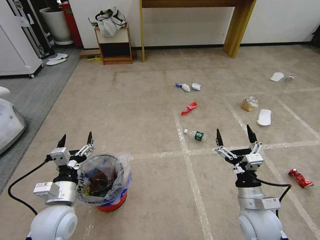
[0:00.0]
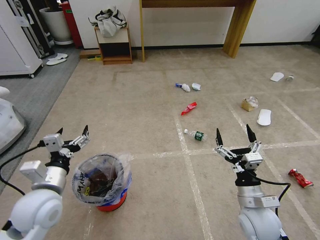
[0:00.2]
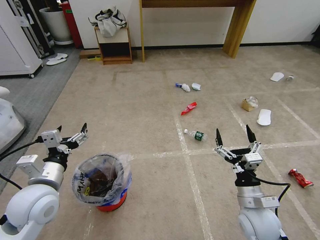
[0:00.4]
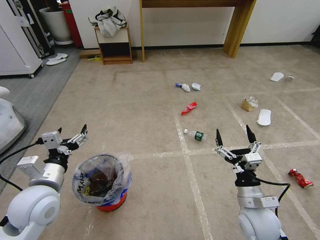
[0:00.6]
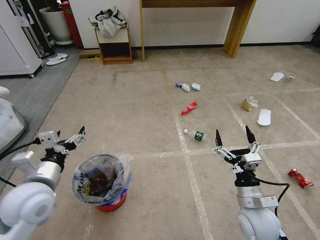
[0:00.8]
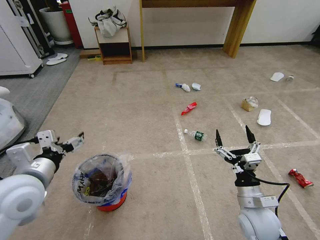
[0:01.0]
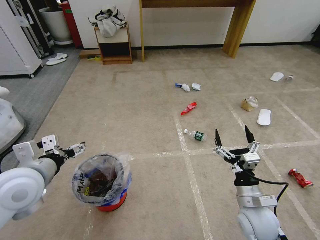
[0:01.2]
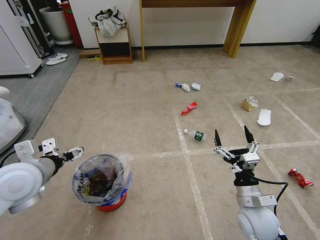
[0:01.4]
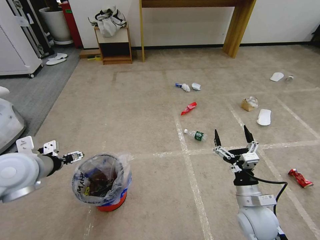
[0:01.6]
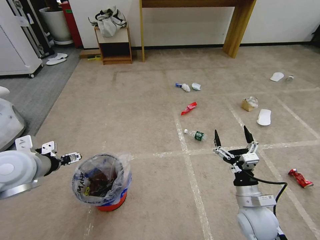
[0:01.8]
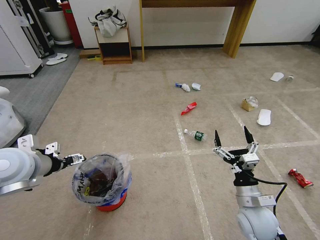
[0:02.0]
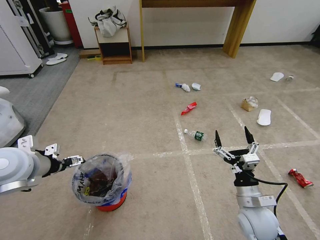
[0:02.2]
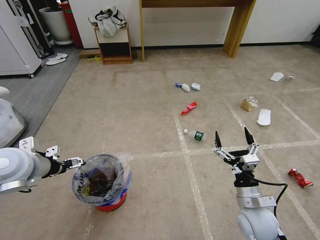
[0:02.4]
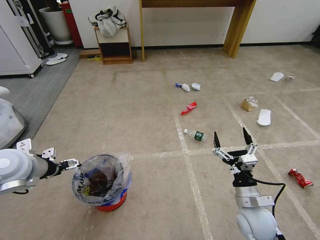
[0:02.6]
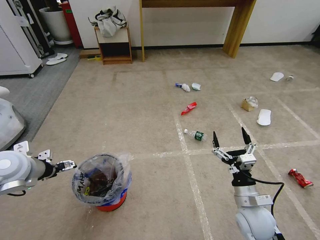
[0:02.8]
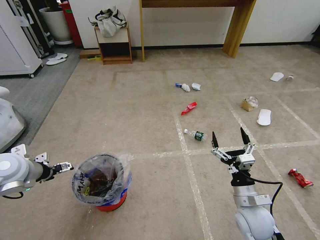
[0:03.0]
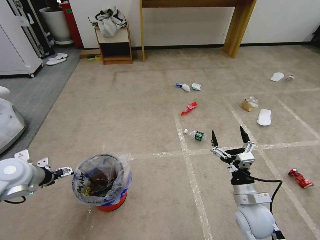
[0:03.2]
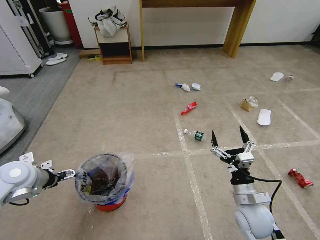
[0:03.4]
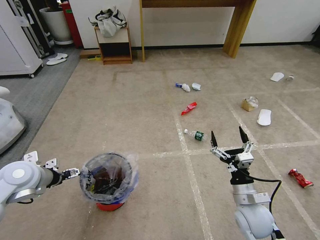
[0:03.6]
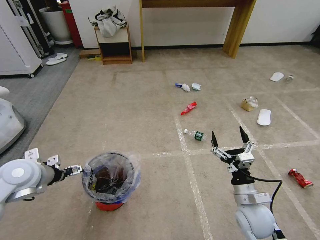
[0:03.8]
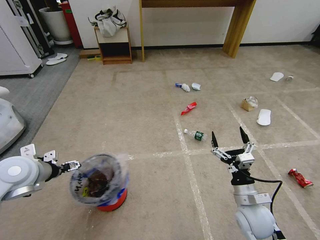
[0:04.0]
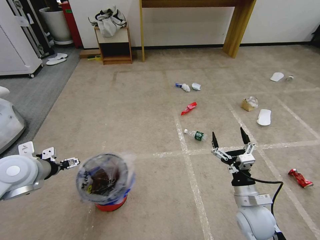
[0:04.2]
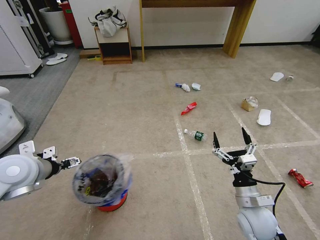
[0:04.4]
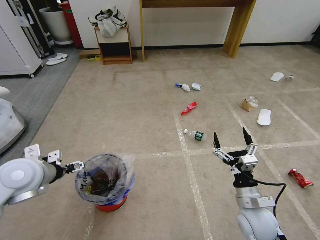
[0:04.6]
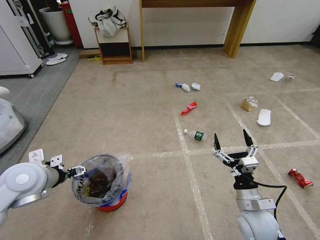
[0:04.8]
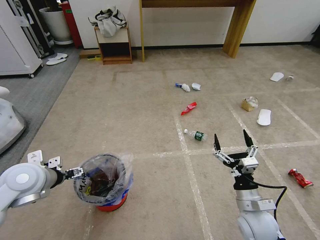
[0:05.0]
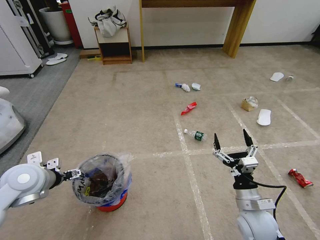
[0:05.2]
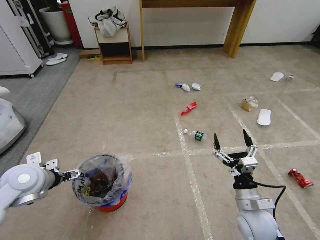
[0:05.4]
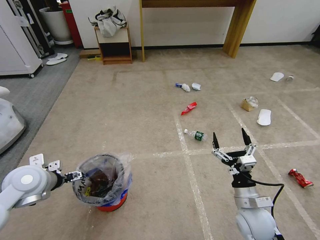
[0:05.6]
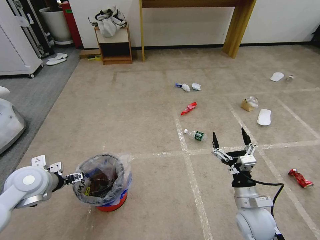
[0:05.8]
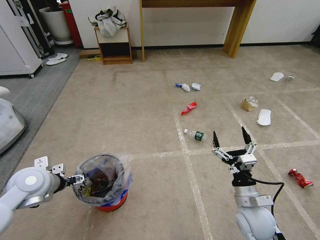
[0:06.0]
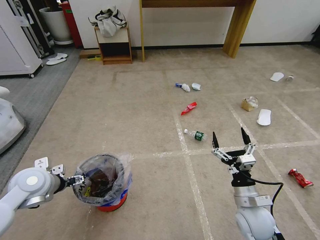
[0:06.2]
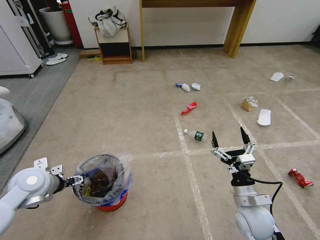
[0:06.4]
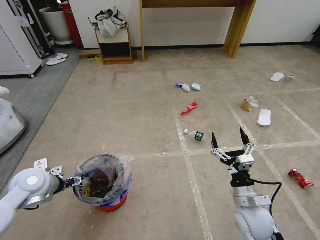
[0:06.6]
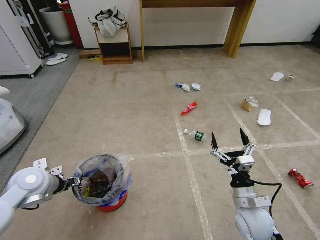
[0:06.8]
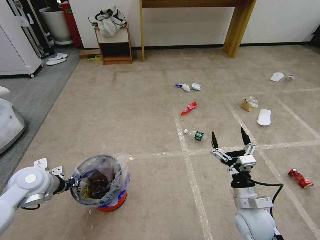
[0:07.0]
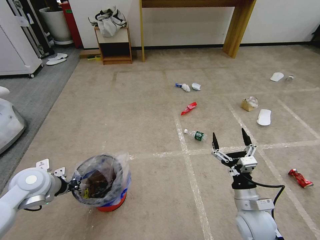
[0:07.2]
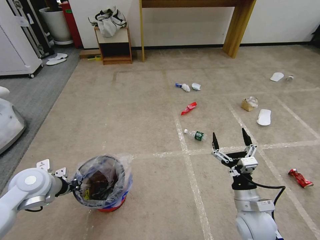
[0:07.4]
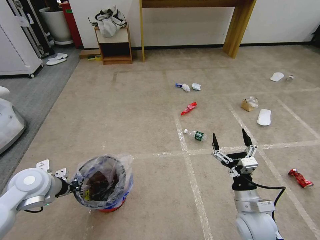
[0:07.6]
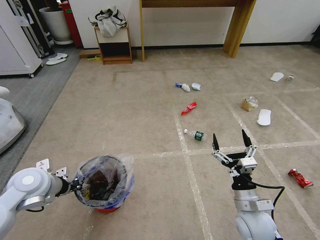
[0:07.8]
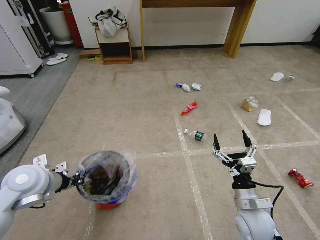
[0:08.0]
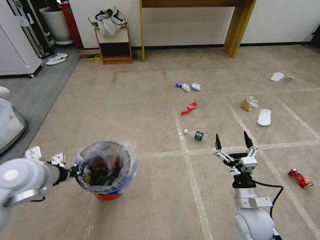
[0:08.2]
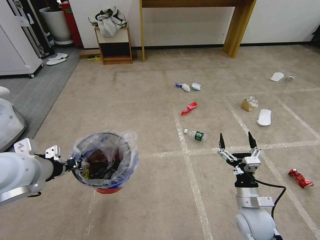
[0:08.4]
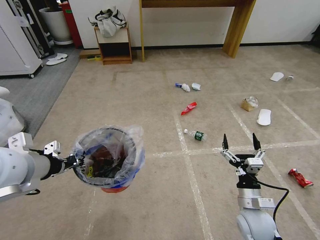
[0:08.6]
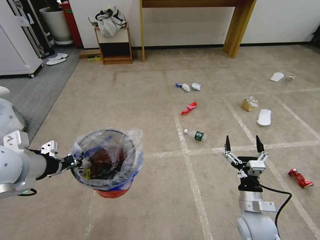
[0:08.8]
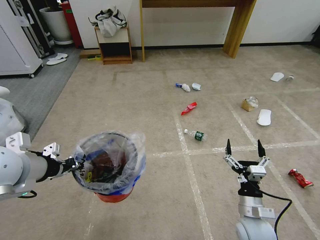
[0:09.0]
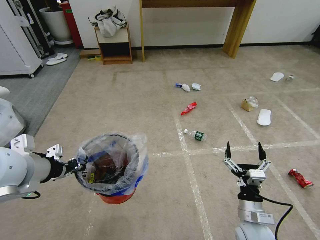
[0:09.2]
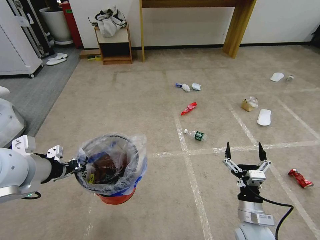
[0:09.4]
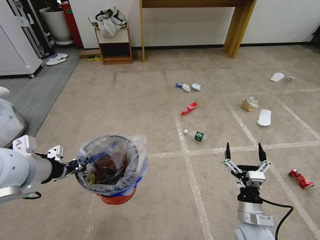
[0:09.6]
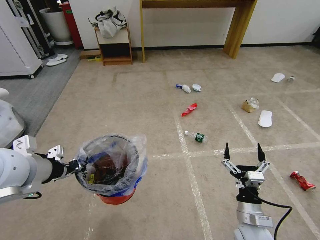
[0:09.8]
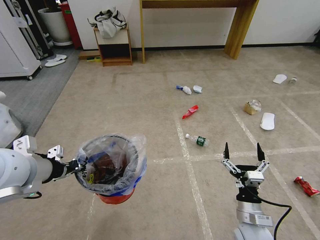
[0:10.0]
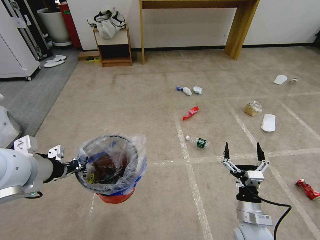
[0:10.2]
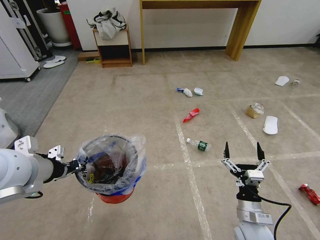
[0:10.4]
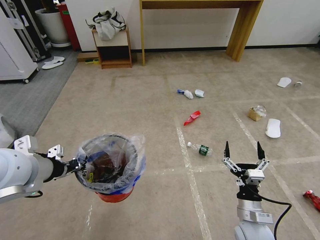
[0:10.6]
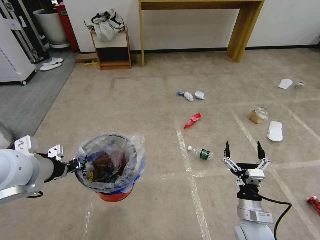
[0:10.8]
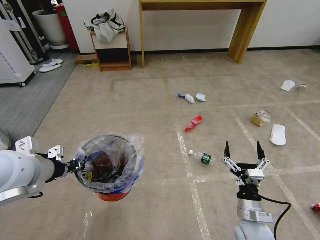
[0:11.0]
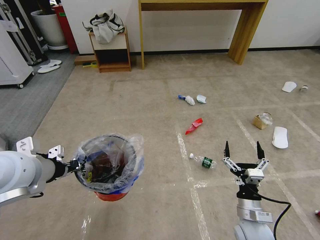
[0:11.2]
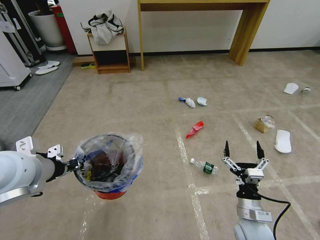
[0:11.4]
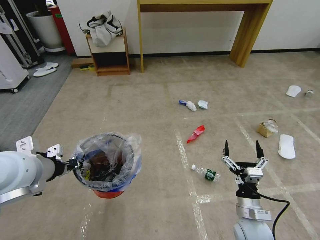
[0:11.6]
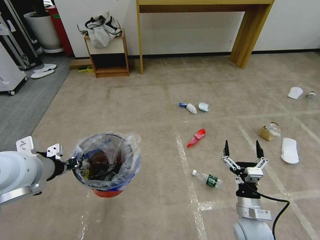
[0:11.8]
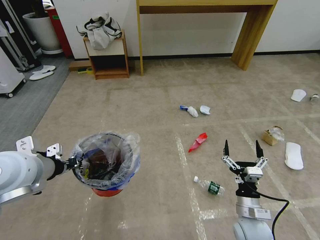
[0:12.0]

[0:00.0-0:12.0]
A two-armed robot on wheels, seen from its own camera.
Task of the whole recording: Pick up the trash bin and place the garbage on the floor into it.
0:01.6 to 0:03.0: The left gripper heads to the left, covering approximately 5 cm.
0:03.0 to 0:04.4: The left gripper shifts by some 5 cm.
0:04.4 to 0:06.0: The left gripper moves downward, approximately 5 cm.
0:06.0 to 0:07.6: The left gripper closes up.
0:07.6 to 0:09.0: The left gripper heads upward, covering about 15 cm.
0:09.0 to 0:10.4: The grippers move only a little.

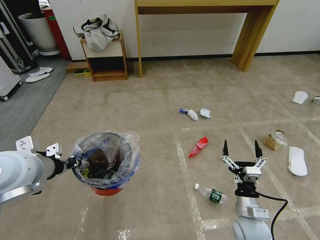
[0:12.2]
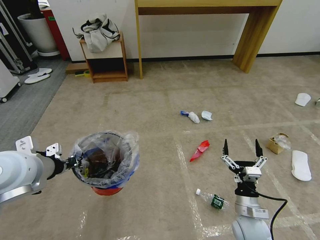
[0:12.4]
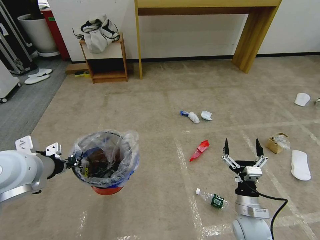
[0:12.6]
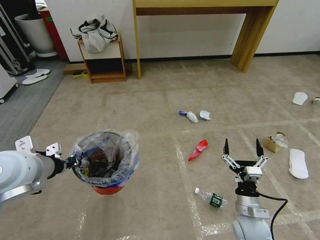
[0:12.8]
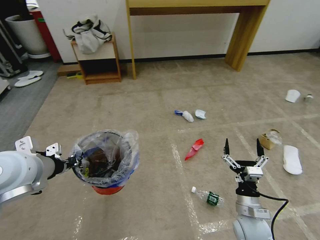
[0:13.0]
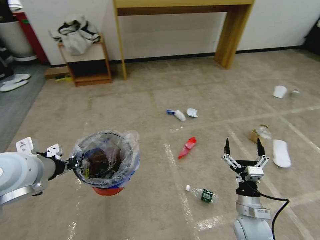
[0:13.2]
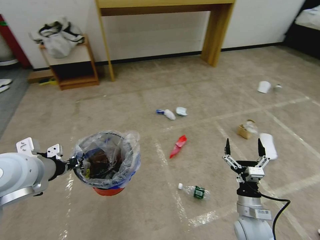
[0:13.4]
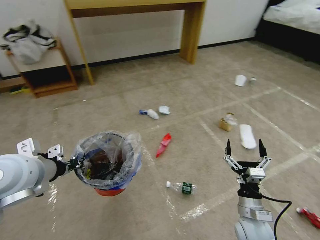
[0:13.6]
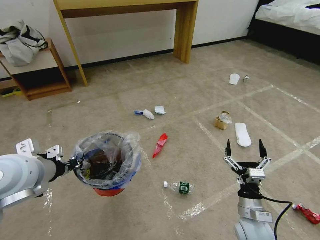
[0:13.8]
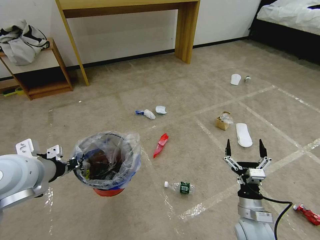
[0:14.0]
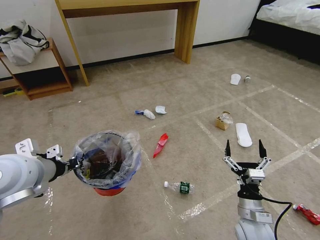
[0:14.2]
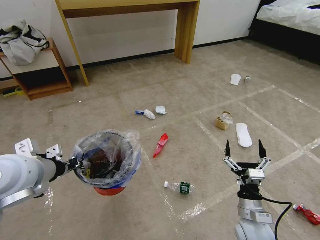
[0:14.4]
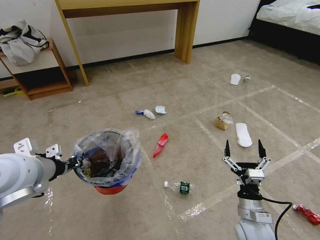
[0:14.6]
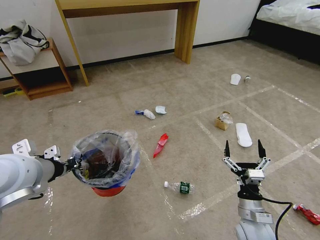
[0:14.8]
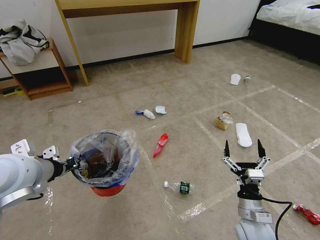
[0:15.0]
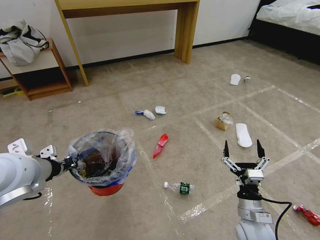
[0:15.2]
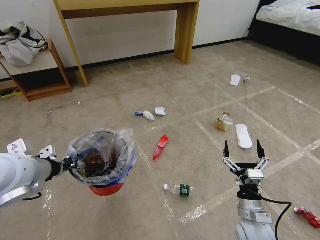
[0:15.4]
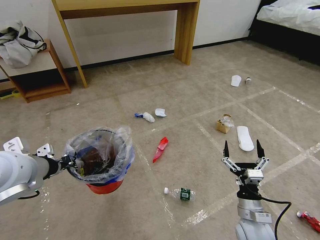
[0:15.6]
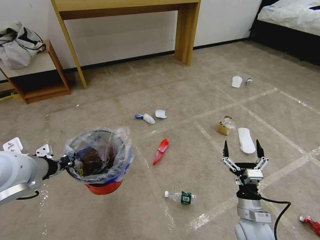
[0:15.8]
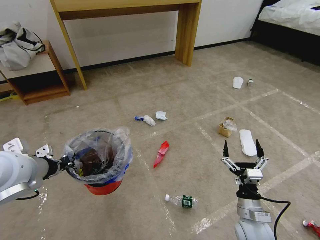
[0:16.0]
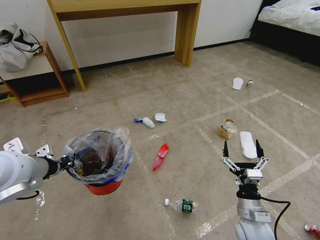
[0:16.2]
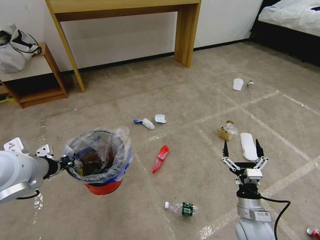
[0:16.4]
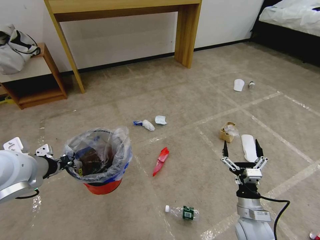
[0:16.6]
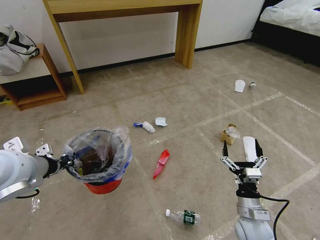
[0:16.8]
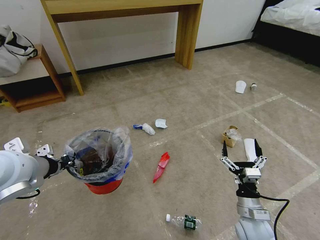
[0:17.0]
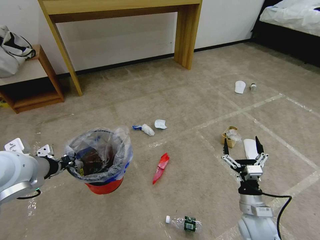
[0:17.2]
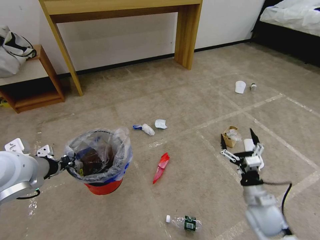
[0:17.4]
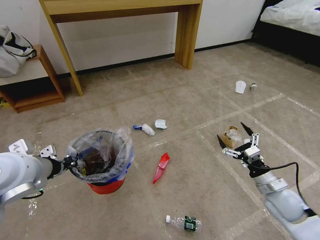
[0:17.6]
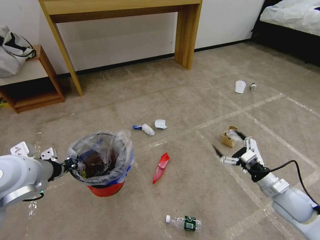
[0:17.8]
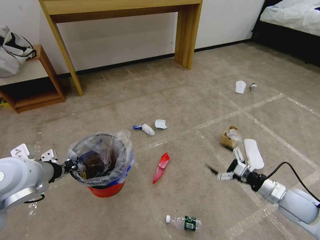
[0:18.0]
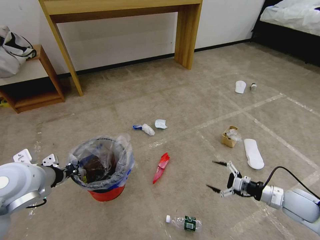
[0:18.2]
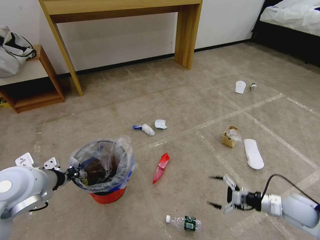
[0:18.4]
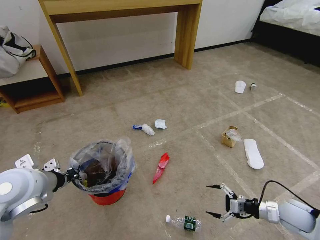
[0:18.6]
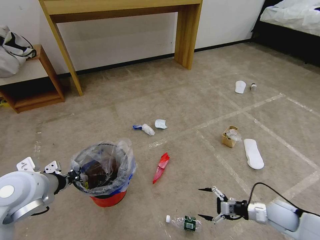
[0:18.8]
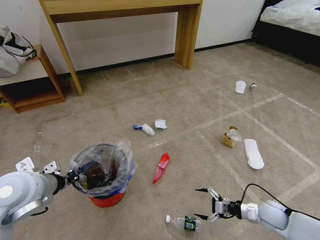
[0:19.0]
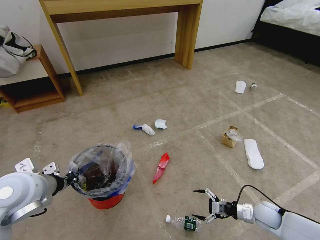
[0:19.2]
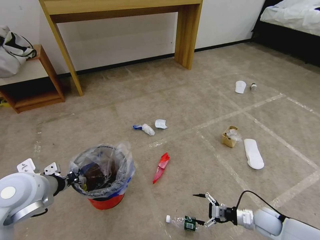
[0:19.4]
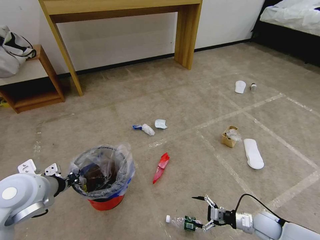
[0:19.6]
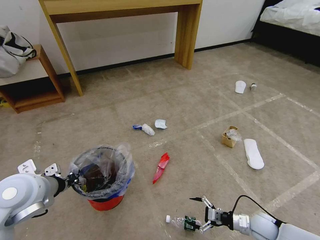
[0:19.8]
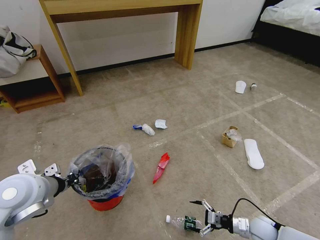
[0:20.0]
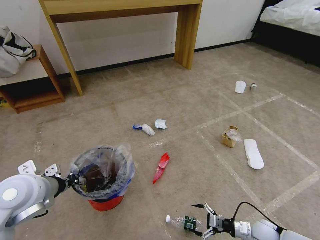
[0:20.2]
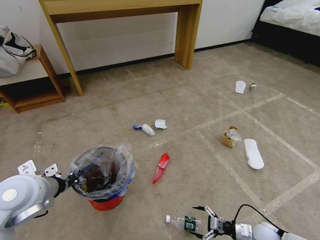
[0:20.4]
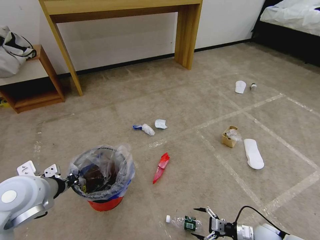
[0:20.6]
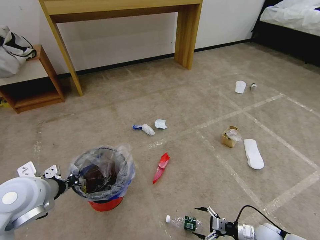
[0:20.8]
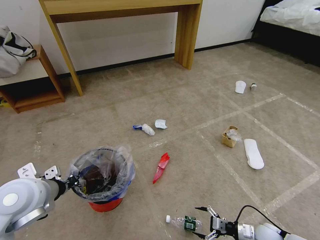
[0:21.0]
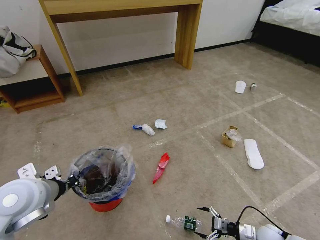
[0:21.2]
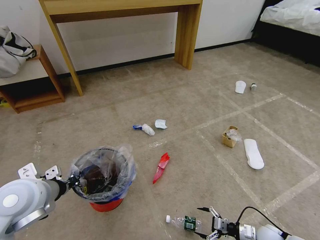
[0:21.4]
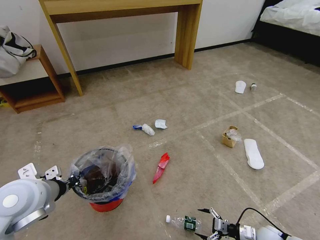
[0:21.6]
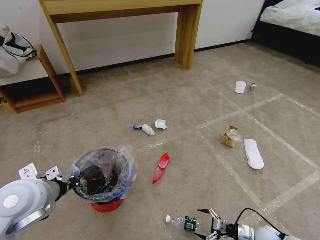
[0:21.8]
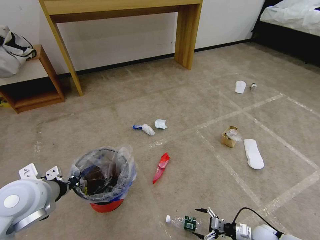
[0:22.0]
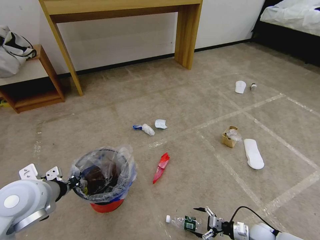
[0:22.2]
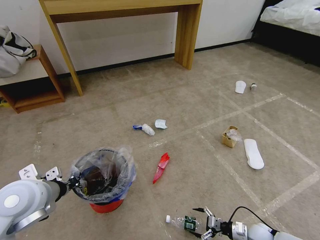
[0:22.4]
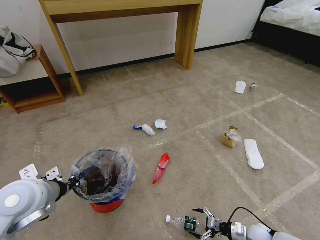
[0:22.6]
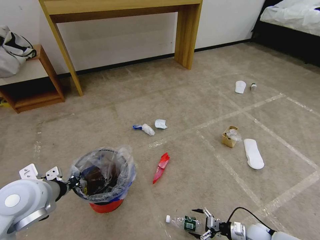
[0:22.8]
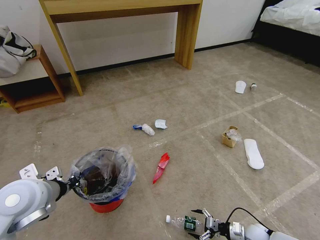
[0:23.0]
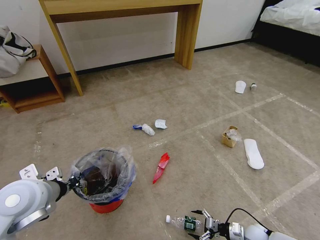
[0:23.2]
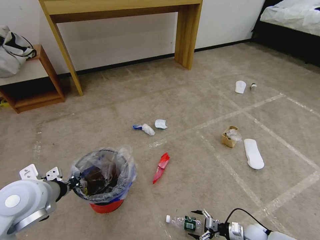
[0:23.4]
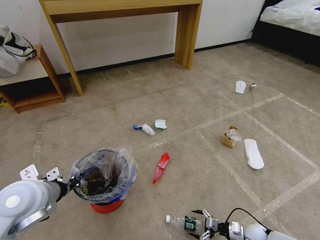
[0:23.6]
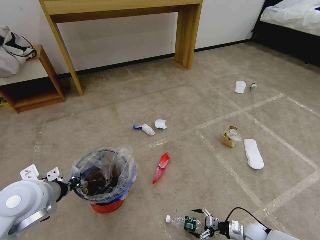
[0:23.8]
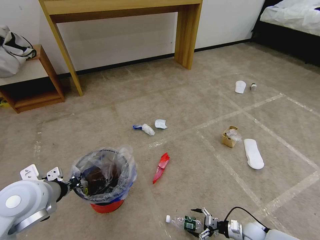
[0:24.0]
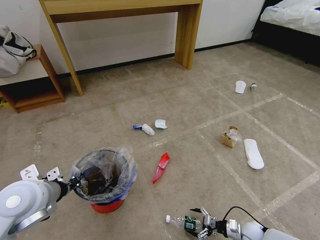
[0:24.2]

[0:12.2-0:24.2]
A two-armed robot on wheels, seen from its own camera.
Task of the whole recording: Pick up the trash bin and place the garbage on the floor into it.
0:13.8 to 0:15.2: The grippers move only a little.
0:16.6 to 0:18.2: The right gripper heads to the right, covering about 15 cm.
0:18.2 to 0:19.8: The right gripper heads downward, covering roughly 15 cm.
0:19.8 to 0:21.2: The right gripper shifts by approximately 5 cm.
0:21.2 to 0:22.6: The grippers make only small movements.
0:22.6 to 0:24.2: The grippers move only a little.
